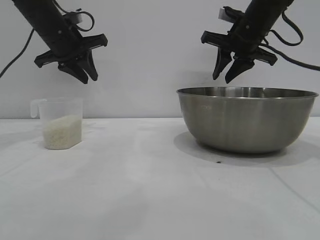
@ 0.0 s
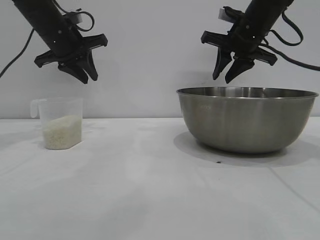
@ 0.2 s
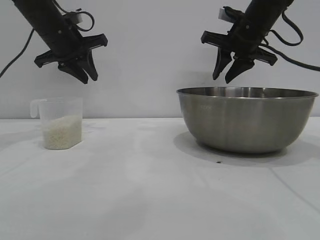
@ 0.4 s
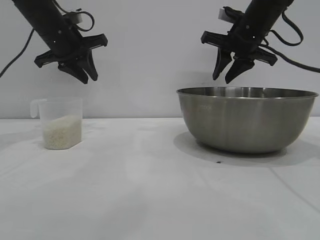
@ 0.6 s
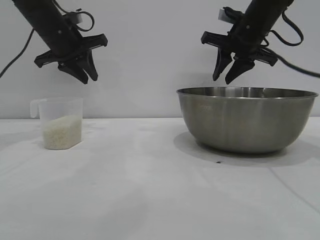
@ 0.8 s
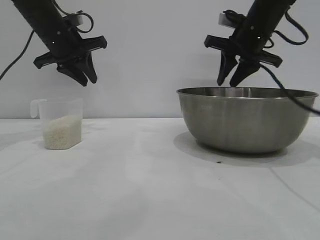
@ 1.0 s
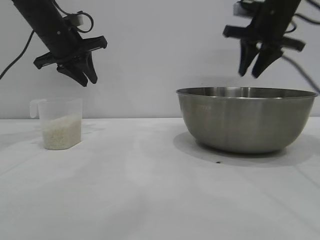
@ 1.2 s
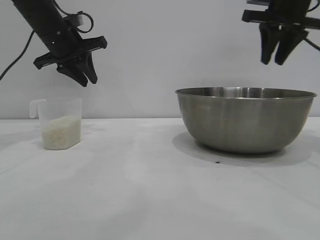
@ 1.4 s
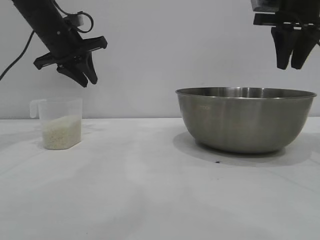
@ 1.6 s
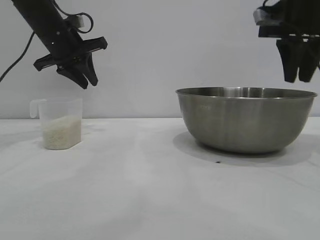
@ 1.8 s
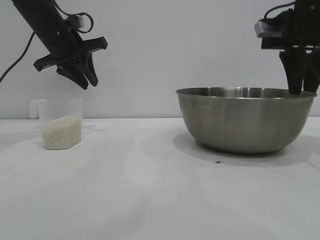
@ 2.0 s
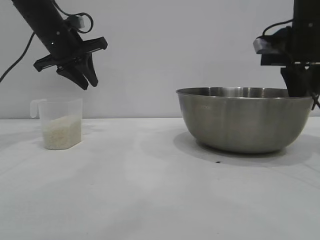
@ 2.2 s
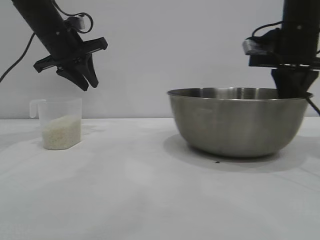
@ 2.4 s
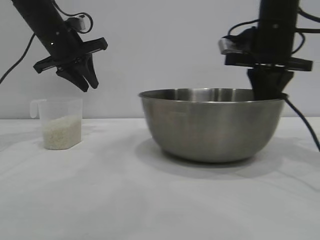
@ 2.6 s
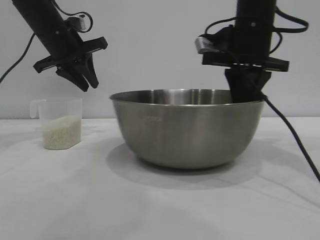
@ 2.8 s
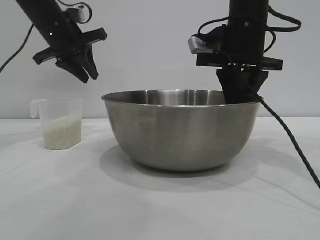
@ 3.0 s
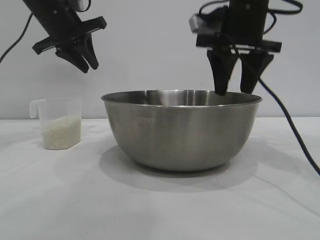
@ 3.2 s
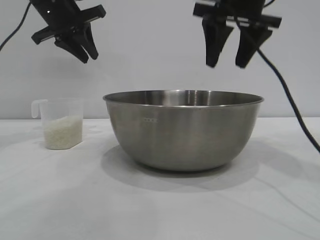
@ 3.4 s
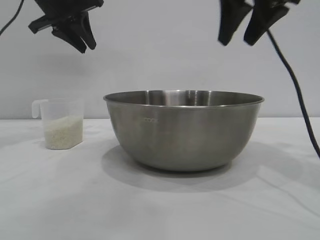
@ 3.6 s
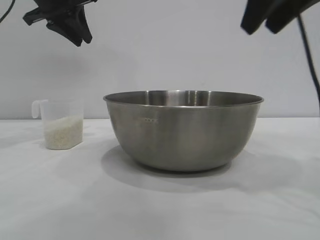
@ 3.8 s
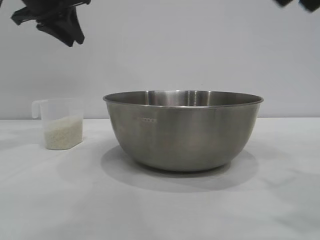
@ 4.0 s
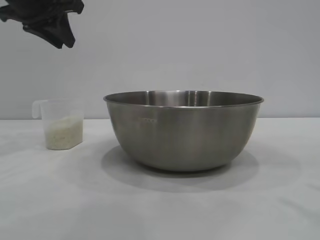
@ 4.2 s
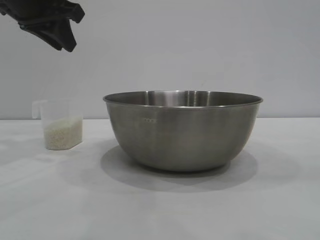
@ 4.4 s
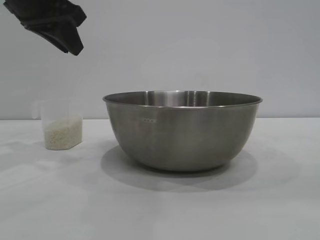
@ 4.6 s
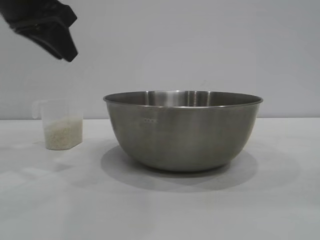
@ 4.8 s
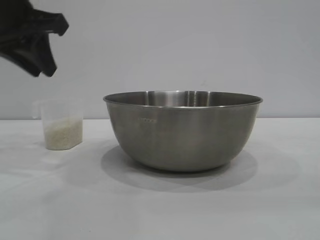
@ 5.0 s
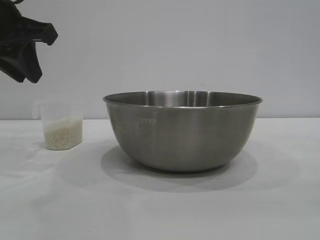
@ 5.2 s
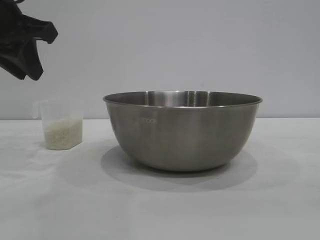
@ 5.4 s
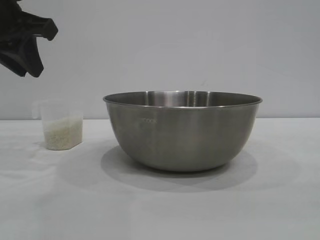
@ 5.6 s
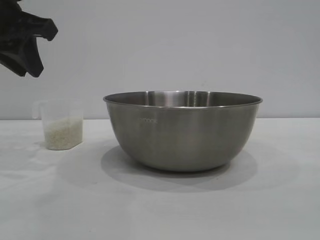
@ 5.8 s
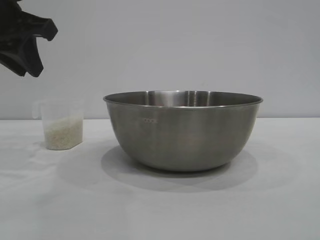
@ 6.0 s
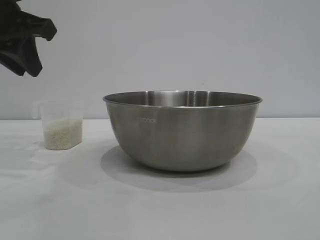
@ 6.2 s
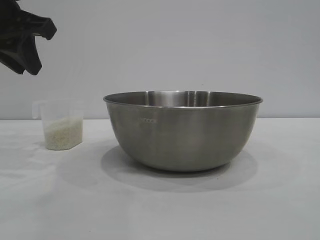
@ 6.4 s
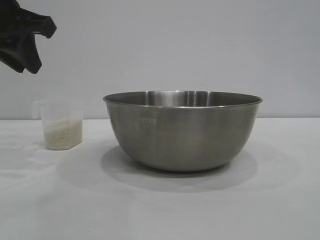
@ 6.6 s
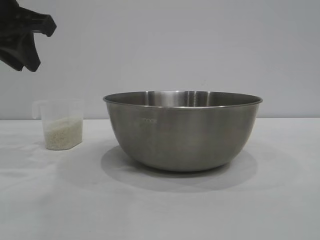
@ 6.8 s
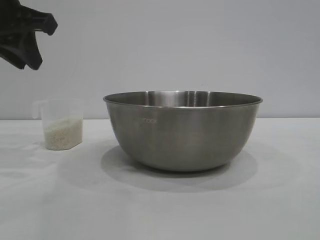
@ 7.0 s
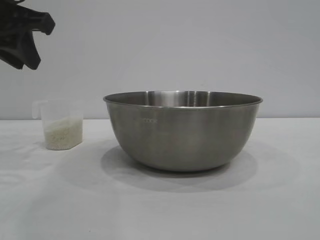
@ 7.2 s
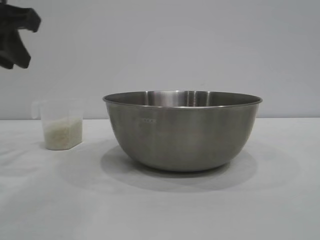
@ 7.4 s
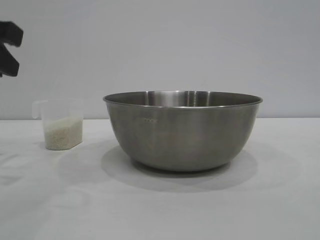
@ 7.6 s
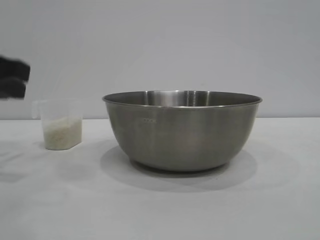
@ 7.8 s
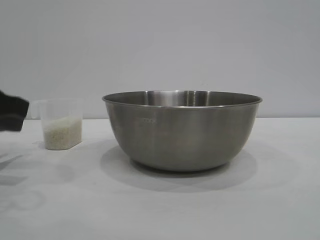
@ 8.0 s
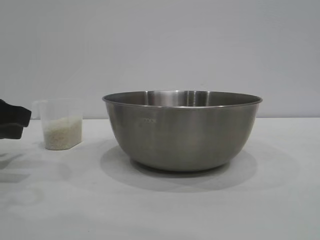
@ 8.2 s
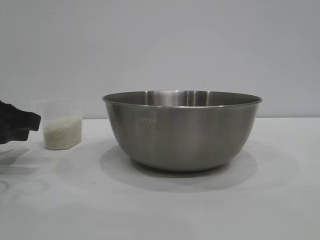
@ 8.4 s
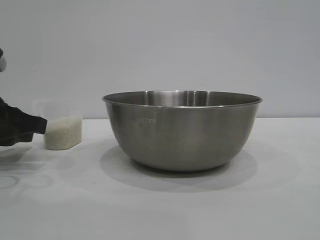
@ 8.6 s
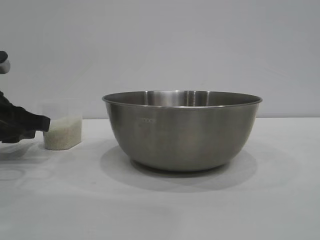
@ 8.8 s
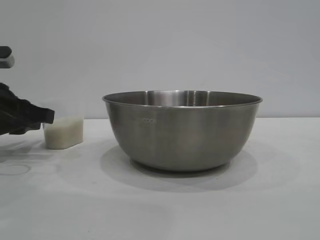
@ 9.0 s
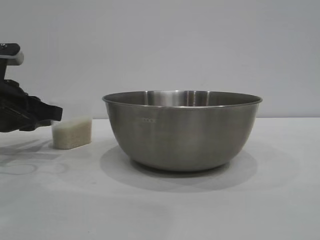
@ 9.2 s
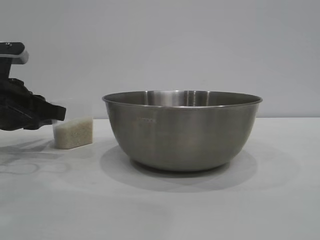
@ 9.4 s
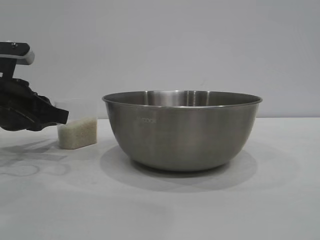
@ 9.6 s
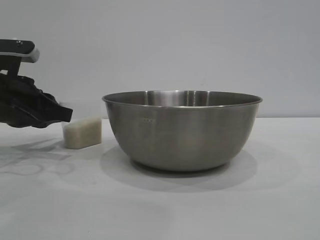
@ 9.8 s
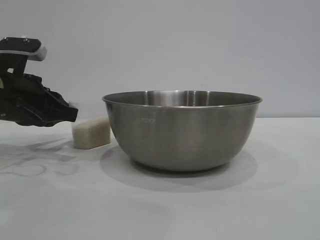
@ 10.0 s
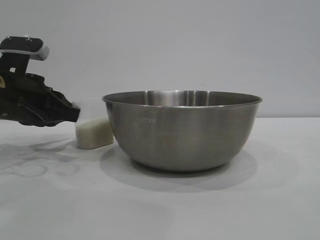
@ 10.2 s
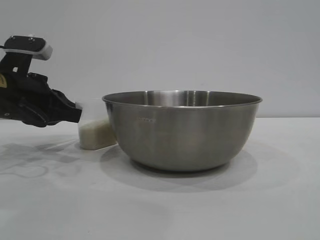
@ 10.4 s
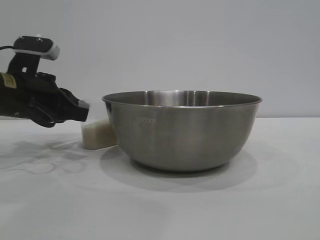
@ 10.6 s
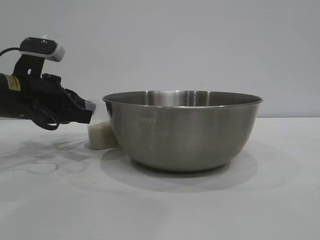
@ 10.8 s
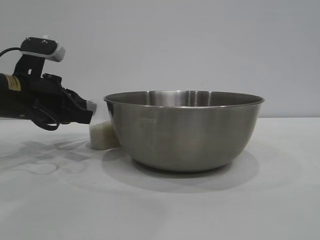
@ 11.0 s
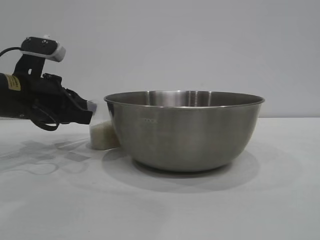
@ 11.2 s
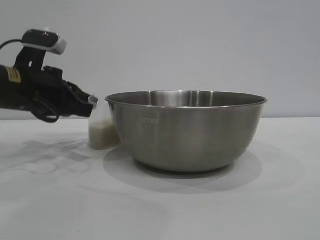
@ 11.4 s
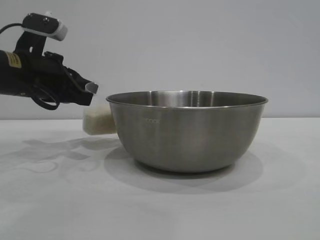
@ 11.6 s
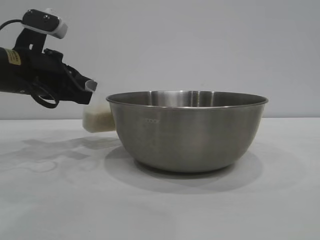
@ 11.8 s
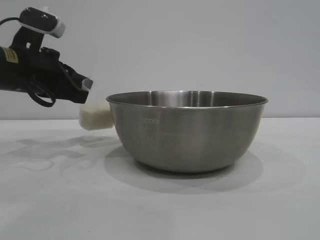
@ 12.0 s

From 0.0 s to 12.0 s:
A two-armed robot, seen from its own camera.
Task of the whole recording: the right gripper grasp the rice container and place it in the center of the table, the left gripper grasp the rice scoop and pour the rice into the rice container.
Step, from 0.0 s to 3.4 s: Move the bowl to the center of view with the right gripper.

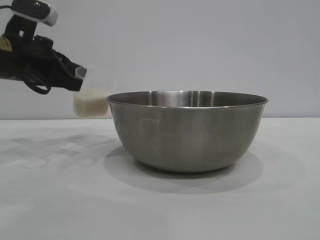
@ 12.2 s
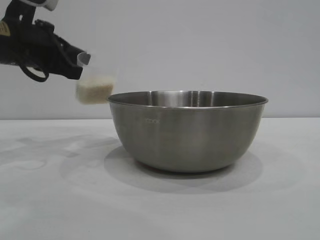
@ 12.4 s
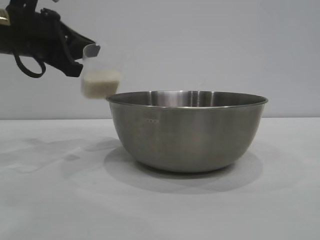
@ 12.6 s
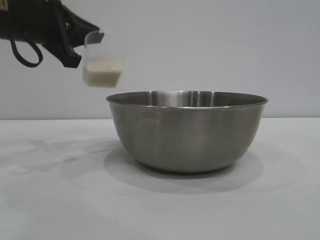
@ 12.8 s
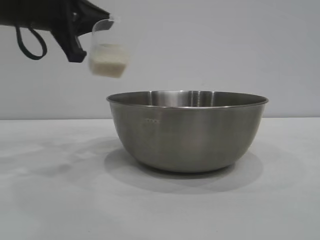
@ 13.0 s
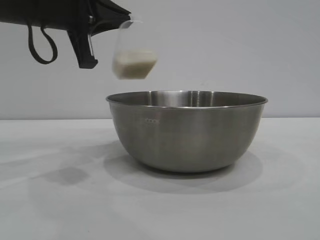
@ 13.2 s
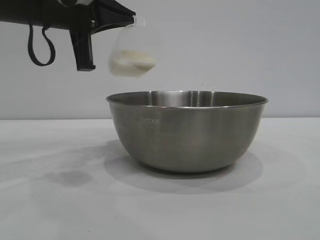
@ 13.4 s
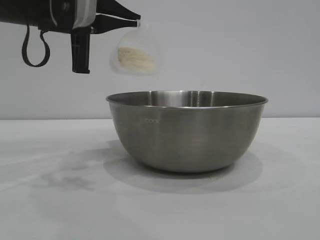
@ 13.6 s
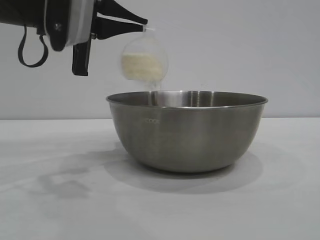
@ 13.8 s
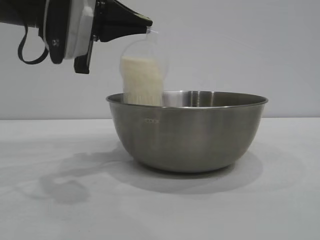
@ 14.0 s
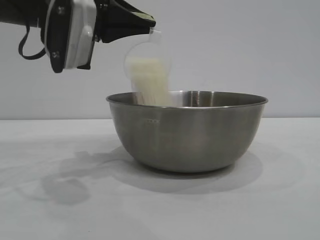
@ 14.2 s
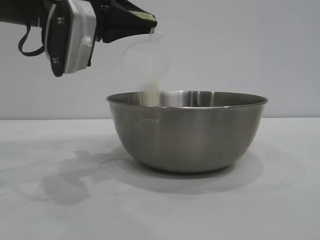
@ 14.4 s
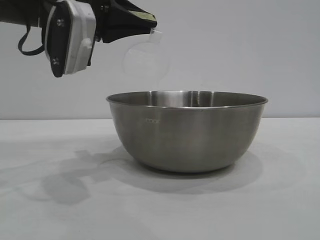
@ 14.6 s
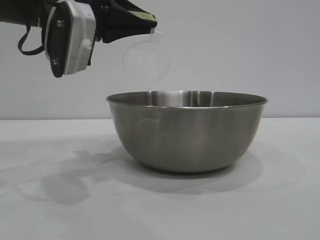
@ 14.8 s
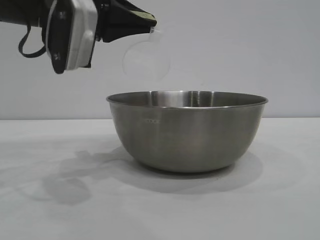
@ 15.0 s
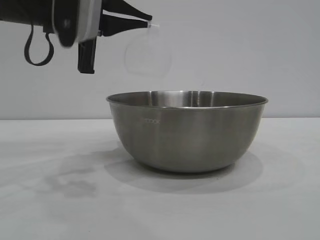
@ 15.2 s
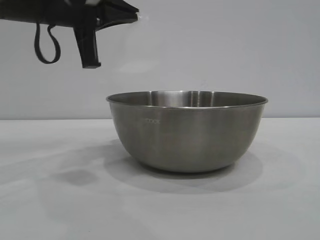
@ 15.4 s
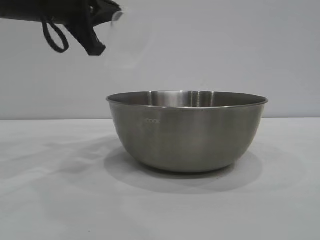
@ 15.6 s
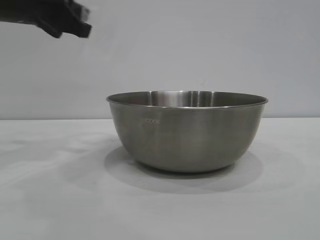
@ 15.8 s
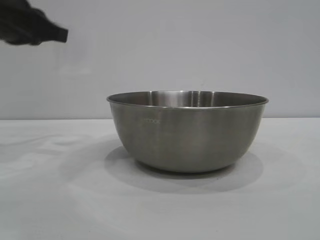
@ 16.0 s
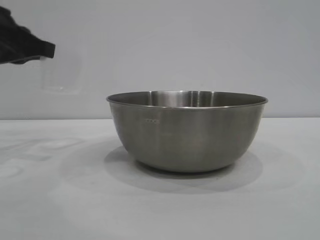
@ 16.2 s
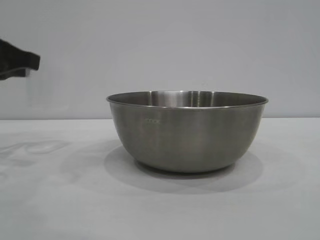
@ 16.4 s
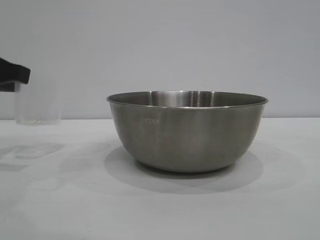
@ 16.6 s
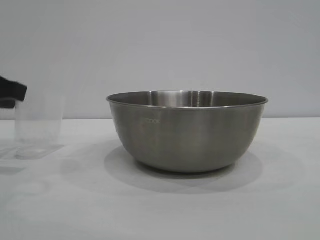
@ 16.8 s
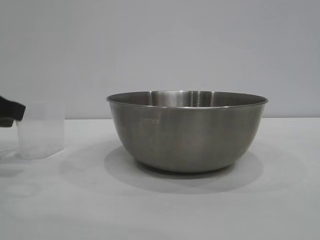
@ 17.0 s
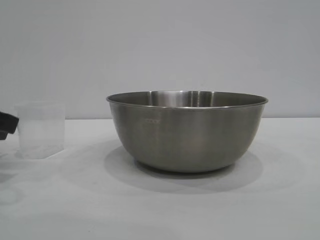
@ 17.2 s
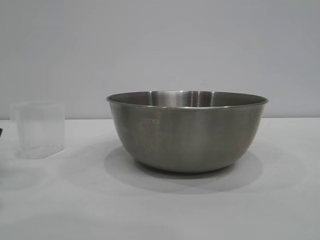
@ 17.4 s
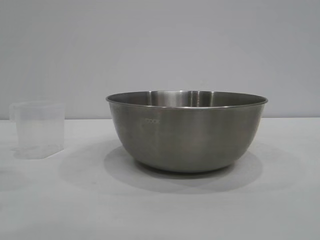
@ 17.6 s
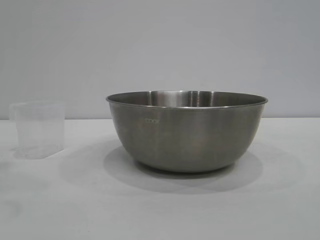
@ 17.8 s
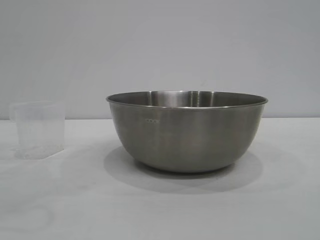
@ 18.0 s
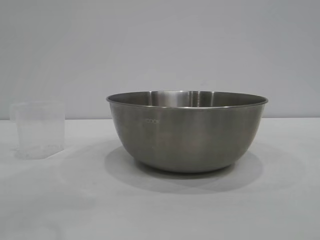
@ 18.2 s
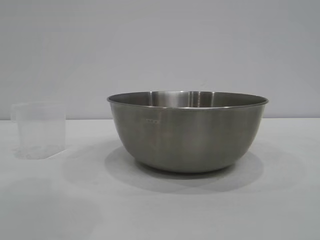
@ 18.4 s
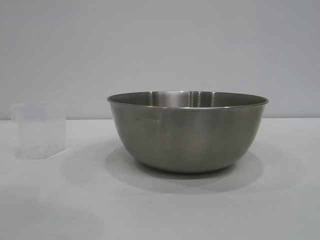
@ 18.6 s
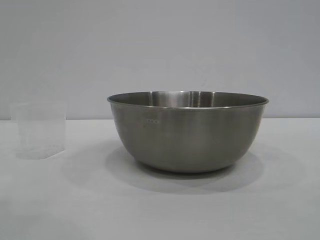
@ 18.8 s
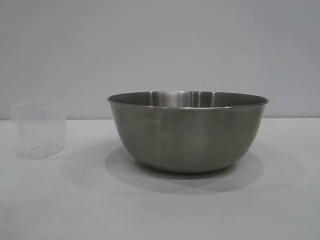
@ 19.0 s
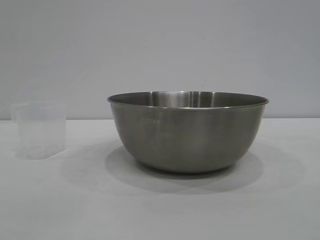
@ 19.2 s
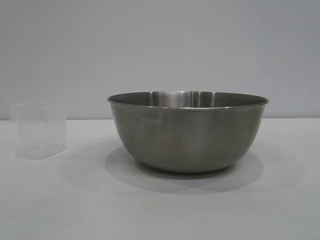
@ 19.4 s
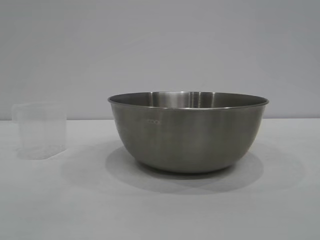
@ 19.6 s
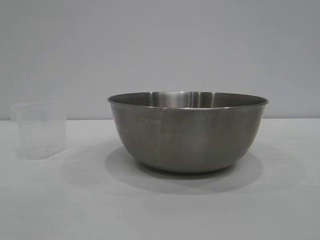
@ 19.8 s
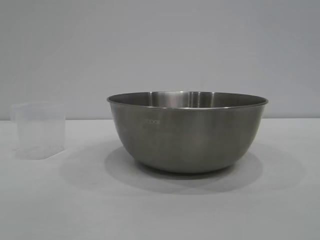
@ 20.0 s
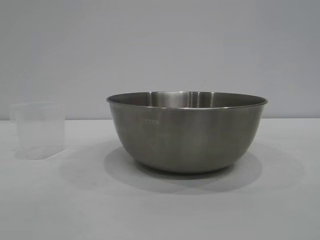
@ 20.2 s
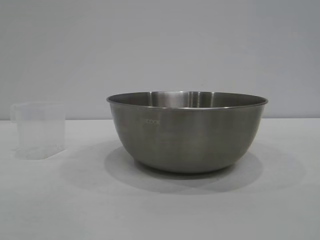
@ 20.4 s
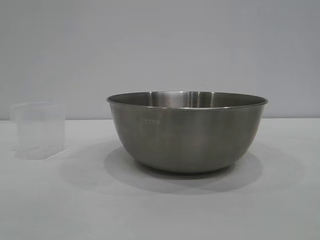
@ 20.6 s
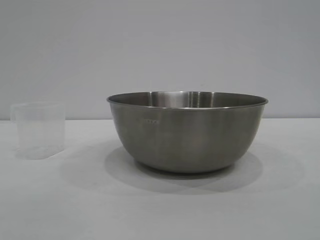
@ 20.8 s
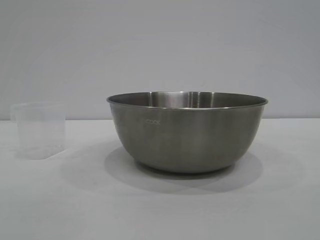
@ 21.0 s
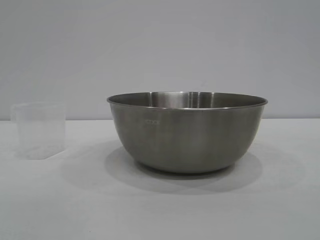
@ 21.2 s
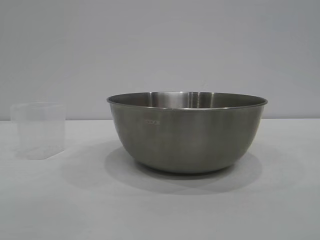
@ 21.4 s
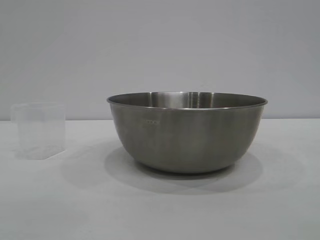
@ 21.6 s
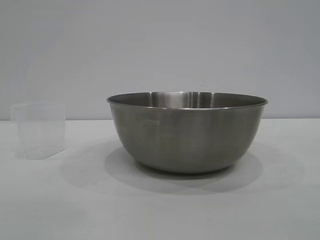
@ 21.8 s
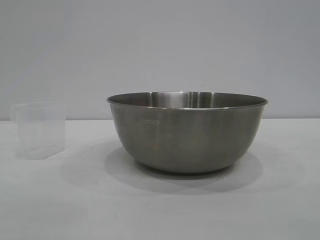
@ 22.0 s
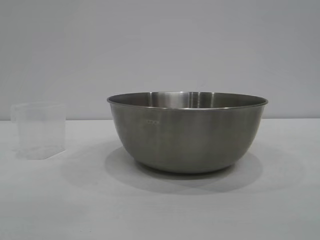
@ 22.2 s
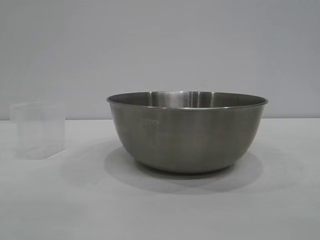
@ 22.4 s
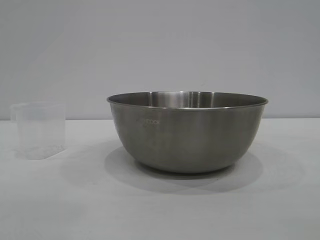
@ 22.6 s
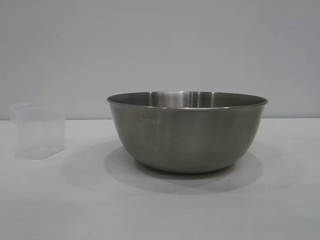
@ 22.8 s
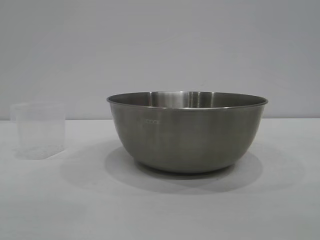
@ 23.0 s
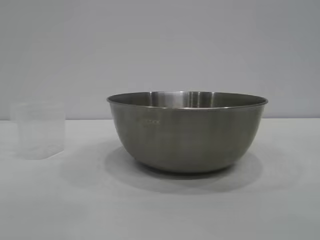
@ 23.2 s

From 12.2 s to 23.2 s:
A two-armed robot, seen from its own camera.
Task of the whole recording: the right gripper grasp the rice container and place it in the center of the table, the left gripper grasp the rice scoop and pour the rice into the rice container.
Step, from 12.4 s to 15.4 s: Pour the rice from the cup into the bowl with the left gripper.
Step, from 15.6 s to 17.2 s: Place the cup on the table with the left gripper.
